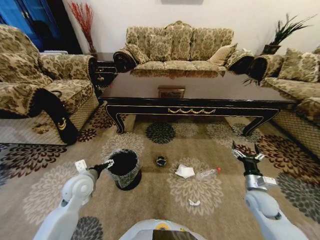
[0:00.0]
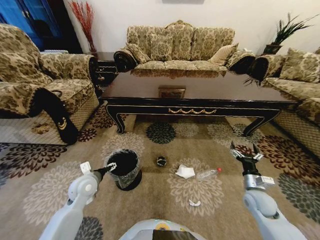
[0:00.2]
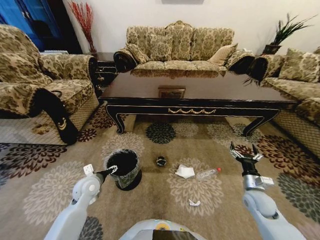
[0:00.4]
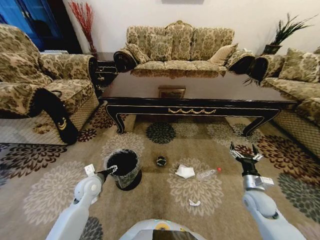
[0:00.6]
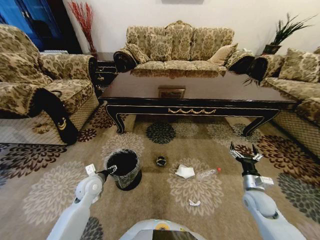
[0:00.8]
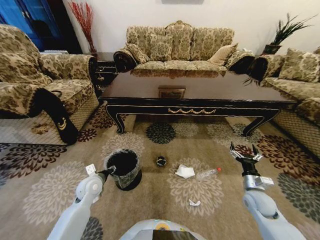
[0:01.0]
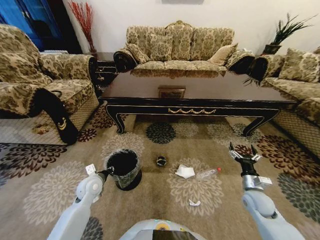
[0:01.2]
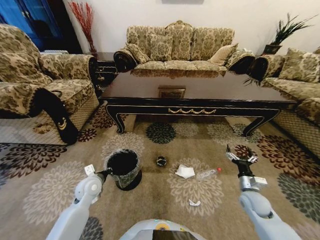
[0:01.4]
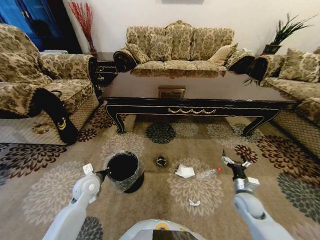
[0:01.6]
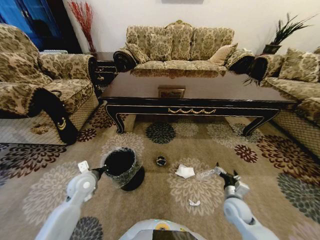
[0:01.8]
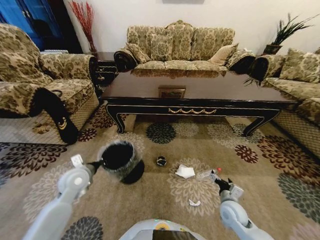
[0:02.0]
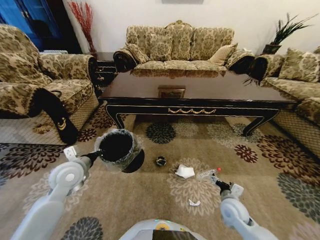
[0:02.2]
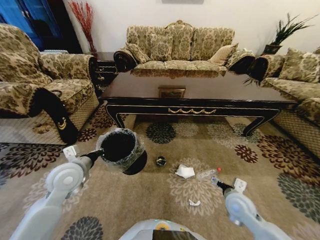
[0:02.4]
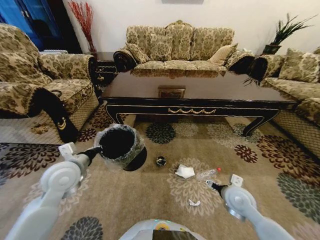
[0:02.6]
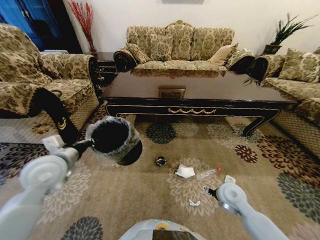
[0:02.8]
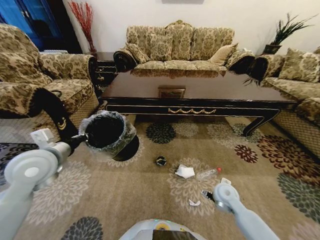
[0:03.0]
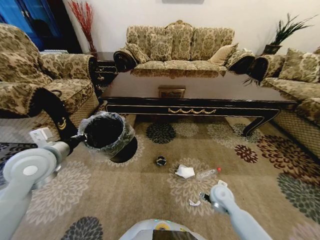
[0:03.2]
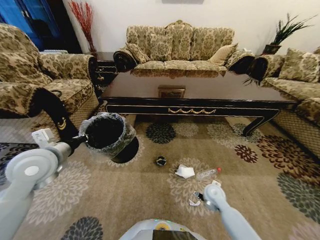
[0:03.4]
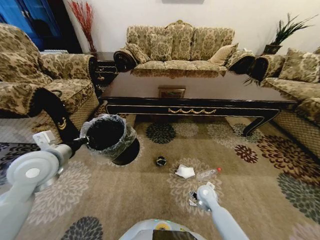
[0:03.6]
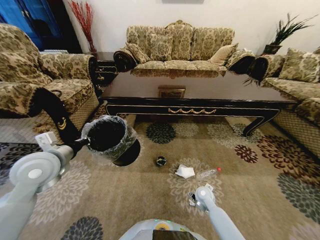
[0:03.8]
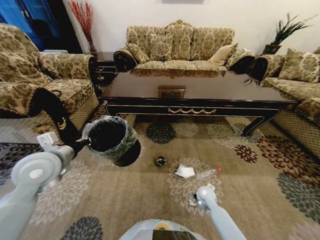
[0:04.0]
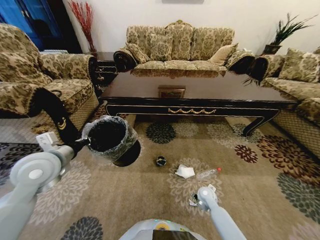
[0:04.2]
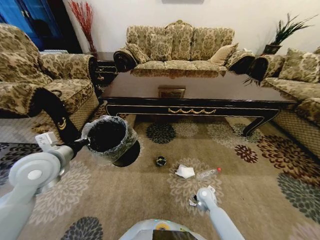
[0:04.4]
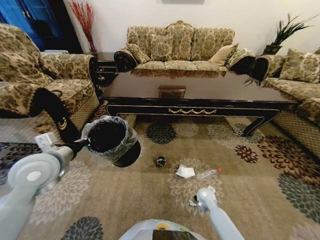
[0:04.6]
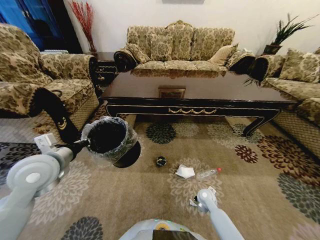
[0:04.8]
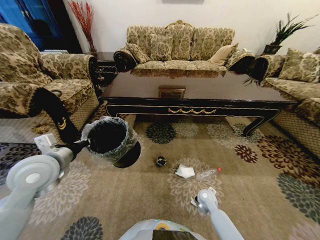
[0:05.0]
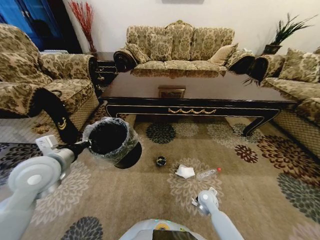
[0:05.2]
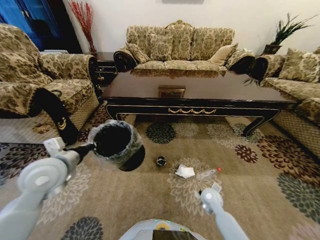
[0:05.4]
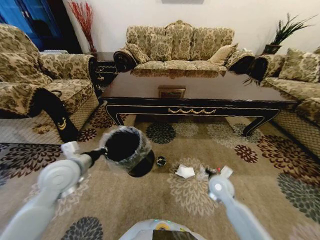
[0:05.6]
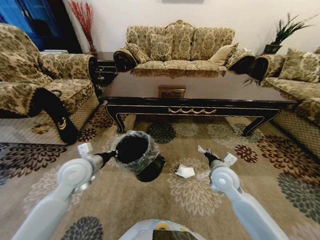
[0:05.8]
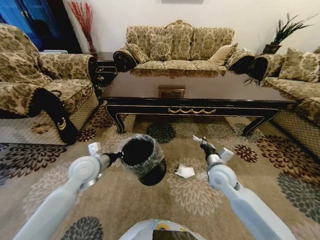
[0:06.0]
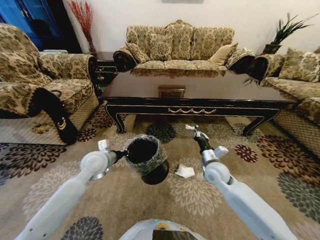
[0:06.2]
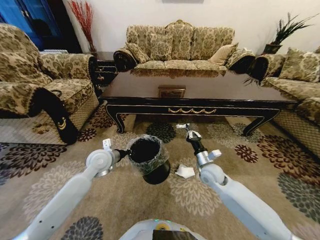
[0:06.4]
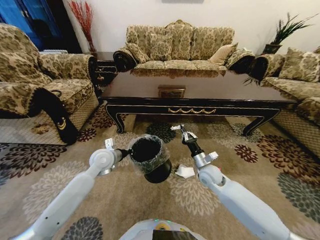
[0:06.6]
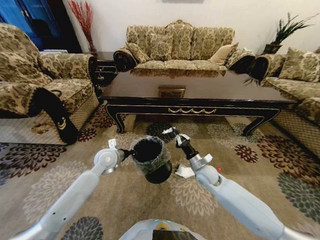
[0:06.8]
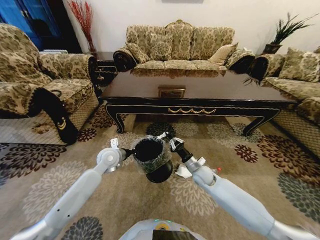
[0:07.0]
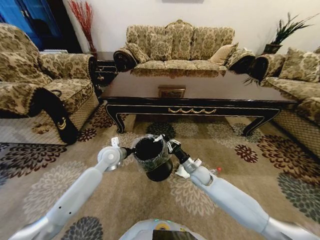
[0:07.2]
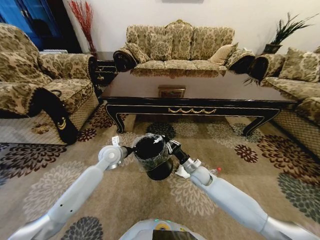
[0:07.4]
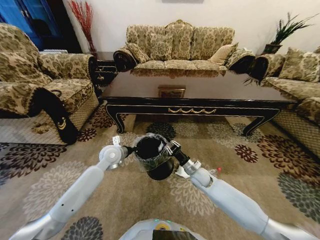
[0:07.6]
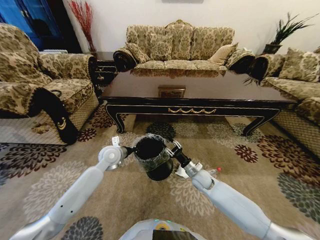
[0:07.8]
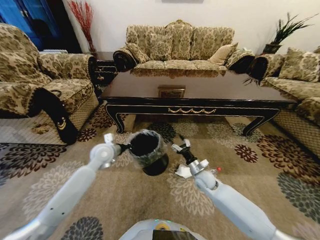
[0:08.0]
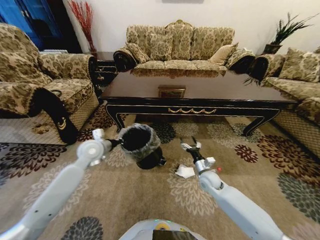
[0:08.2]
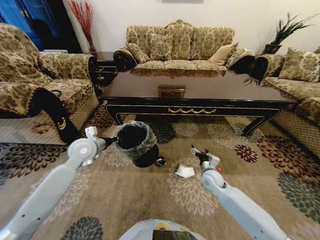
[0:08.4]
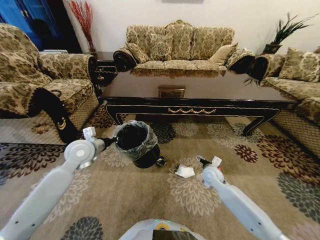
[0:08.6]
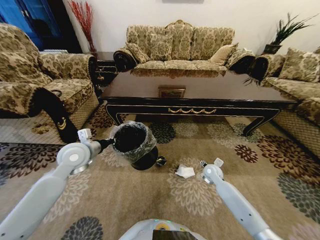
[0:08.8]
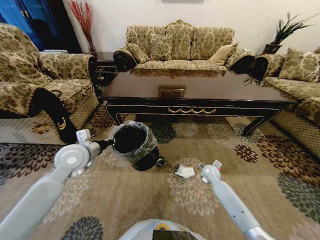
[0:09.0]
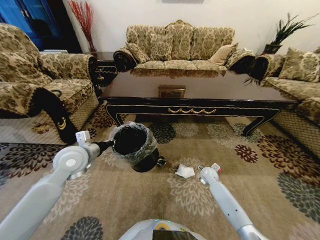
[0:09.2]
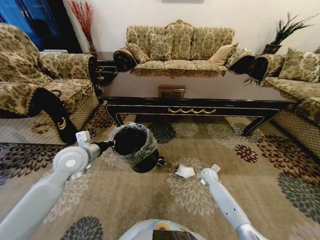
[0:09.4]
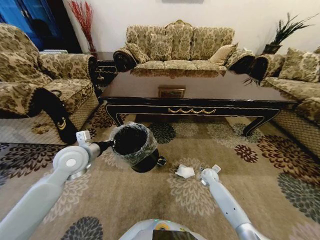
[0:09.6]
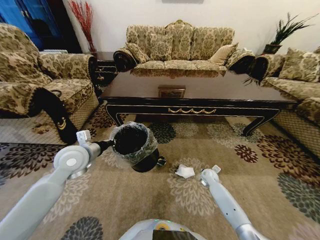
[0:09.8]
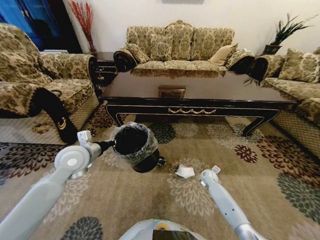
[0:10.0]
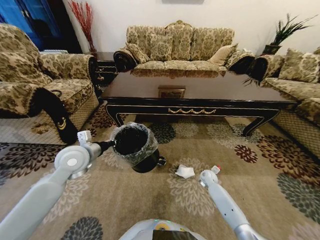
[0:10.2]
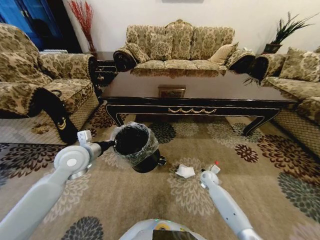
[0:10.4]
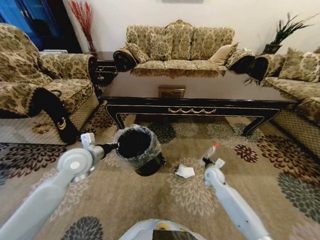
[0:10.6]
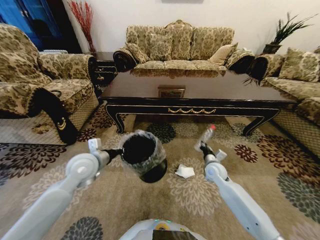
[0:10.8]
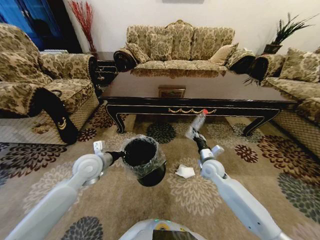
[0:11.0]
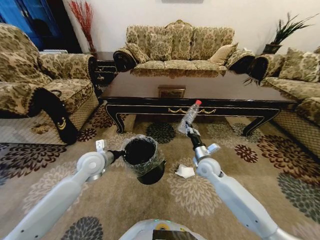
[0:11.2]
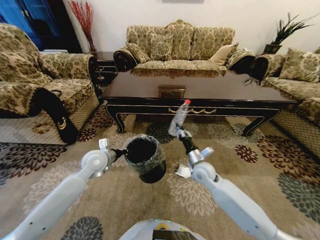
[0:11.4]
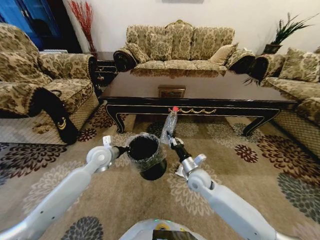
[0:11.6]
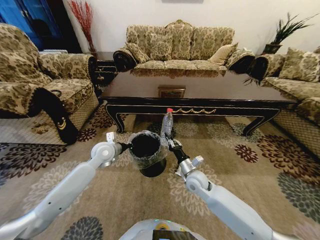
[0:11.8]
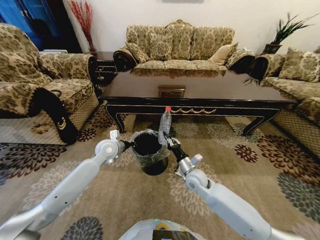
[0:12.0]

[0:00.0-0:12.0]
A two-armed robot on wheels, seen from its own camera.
Task of the whole recording: Move to the front of the table and pick up the trash from the floor, then place it into the trash bin.
0:00.0 to 0:01.6: The right gripper changes place by approximately 5 cm. Meanwhile the left gripper ends up approximately 5 cm from where it was, and closes its fingers.
0:01.6 to 0:03.0: The right gripper moves to the left, some 10 cm; the left gripper moves upward, some 20 cm.
0:03.0 to 0:04.4: The right gripper heads downward, covering roughly 15 cm.
0:04.4 to 0:06.0: The left gripper goes roughly 10 cm downward and to the right. Meanwhile the right gripper shifts approximately 20 cm upward, and closes.
0:06.0 to 0:07.6: The right gripper heads downward, covering approximately 15 cm. Meanwhile the left gripper moves forward, roughly 10 cm.
0:07.6 to 0:09.0: The left gripper shifts about 15 cm upward, to the left and backward; the right gripper shifts roughly 10 cm to the right, and opens up.
0:09.0 to 0:10.4: The right gripper closes up.
0:10.4 to 0:12.0: The right gripper travels upward, to the left and backward by approximately 20 cm, while the left gripper travels forward, downward and to the right by some 15 cm.

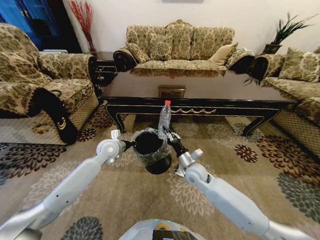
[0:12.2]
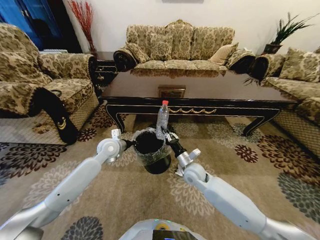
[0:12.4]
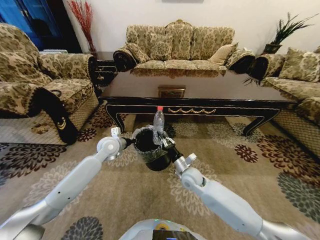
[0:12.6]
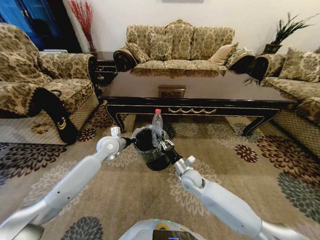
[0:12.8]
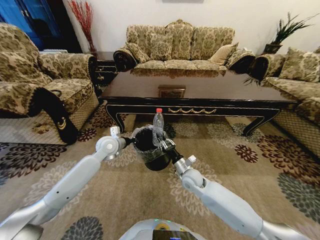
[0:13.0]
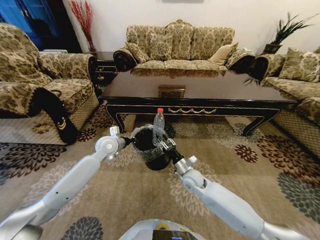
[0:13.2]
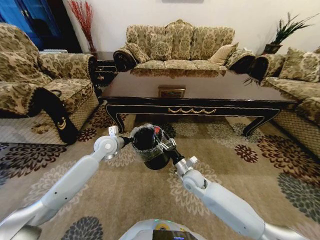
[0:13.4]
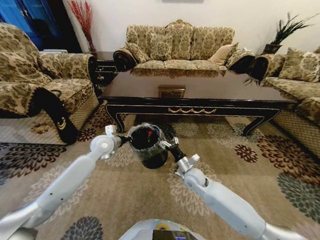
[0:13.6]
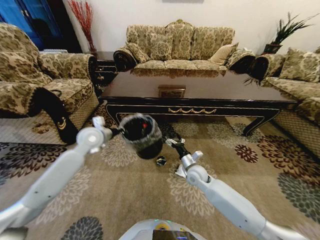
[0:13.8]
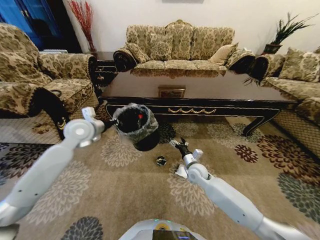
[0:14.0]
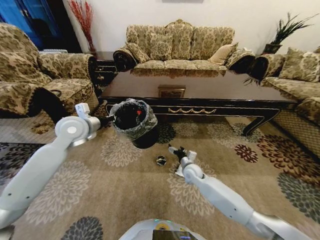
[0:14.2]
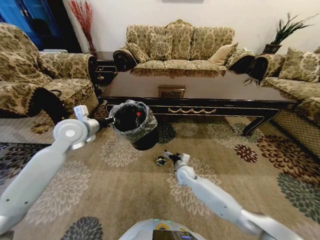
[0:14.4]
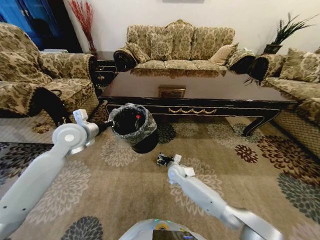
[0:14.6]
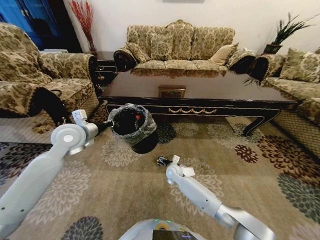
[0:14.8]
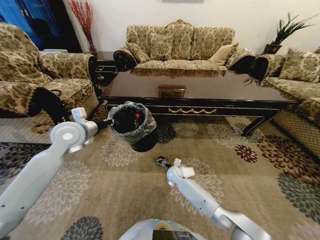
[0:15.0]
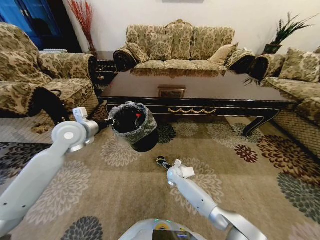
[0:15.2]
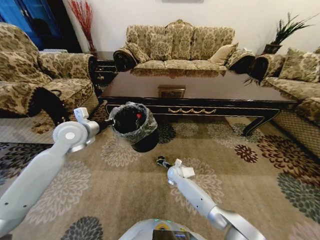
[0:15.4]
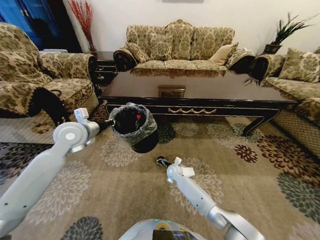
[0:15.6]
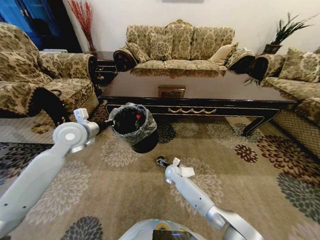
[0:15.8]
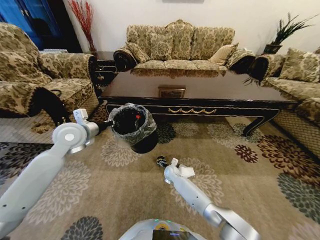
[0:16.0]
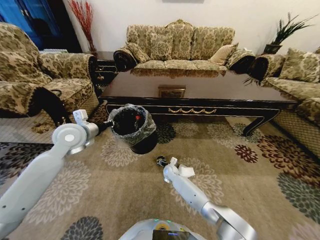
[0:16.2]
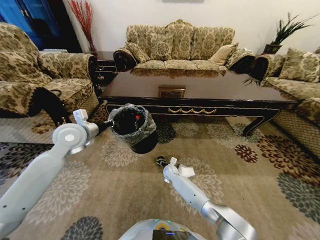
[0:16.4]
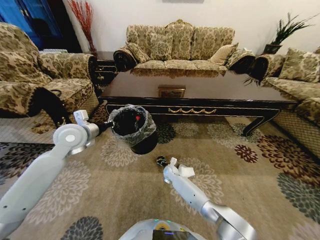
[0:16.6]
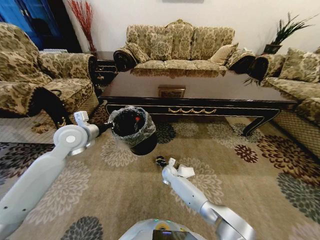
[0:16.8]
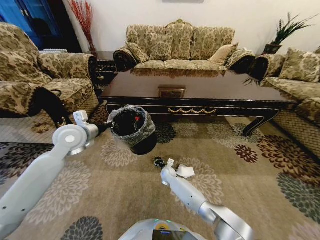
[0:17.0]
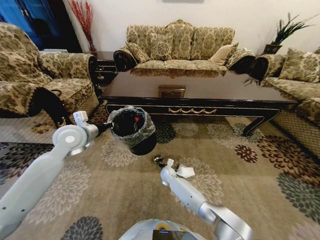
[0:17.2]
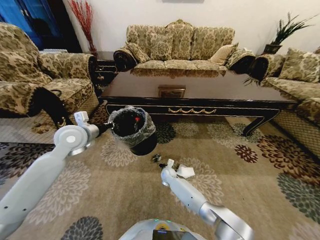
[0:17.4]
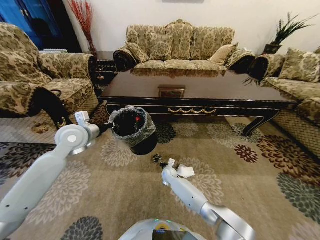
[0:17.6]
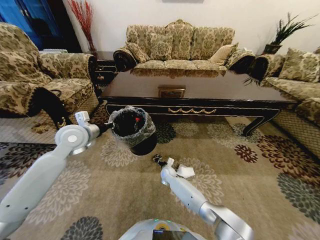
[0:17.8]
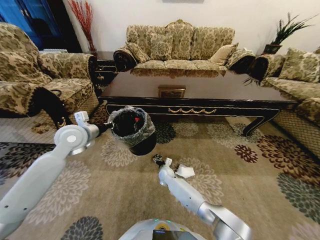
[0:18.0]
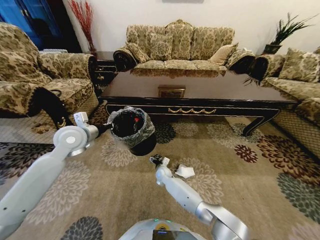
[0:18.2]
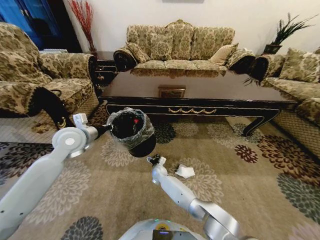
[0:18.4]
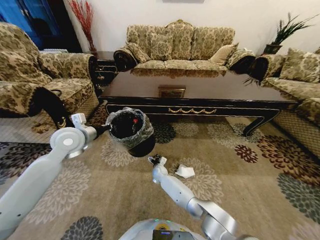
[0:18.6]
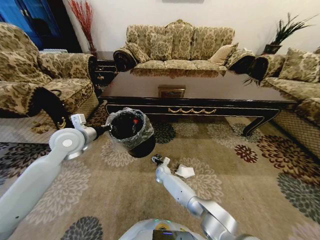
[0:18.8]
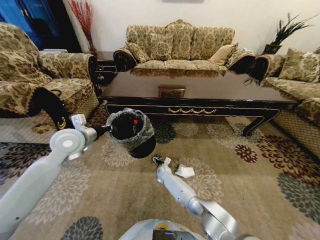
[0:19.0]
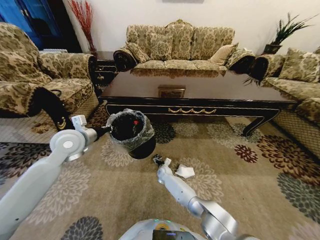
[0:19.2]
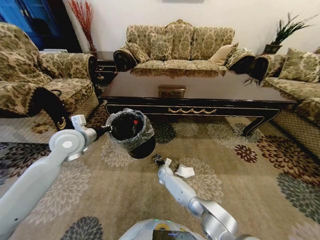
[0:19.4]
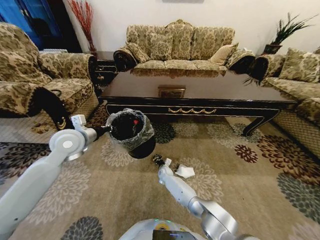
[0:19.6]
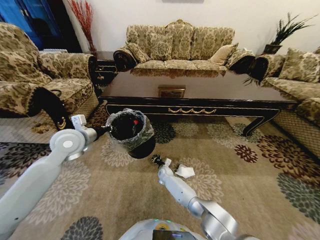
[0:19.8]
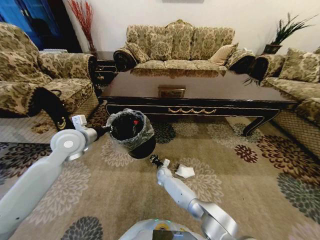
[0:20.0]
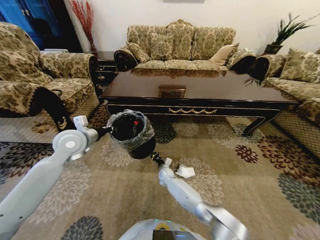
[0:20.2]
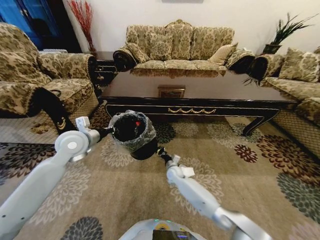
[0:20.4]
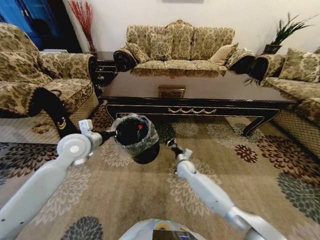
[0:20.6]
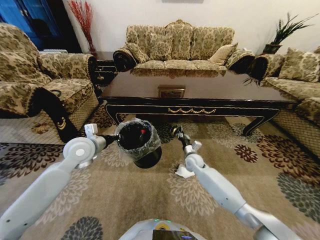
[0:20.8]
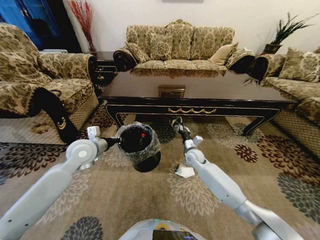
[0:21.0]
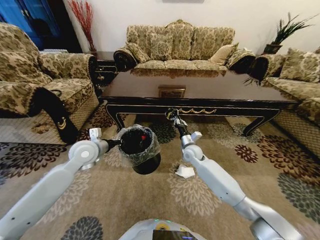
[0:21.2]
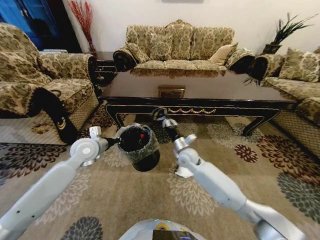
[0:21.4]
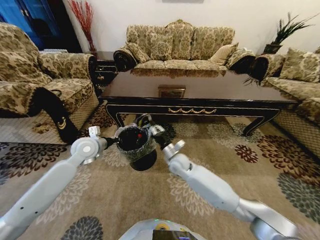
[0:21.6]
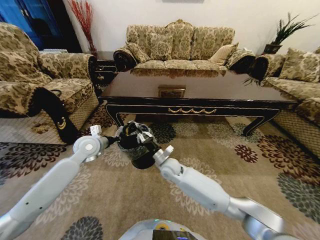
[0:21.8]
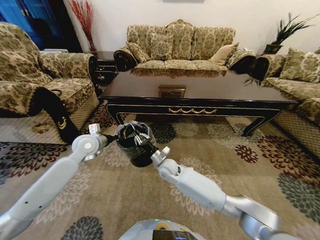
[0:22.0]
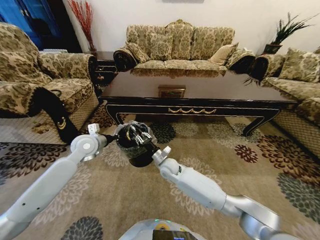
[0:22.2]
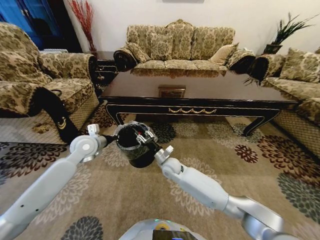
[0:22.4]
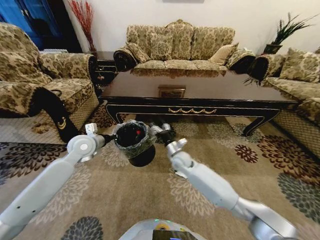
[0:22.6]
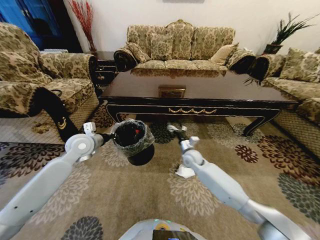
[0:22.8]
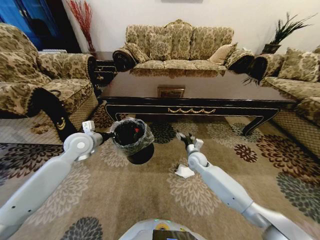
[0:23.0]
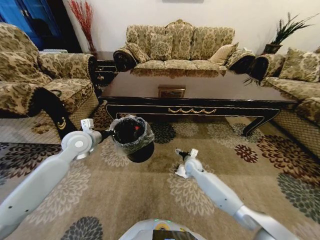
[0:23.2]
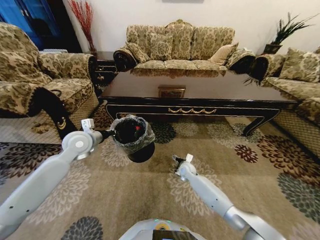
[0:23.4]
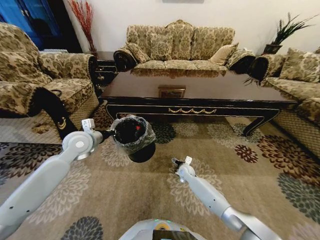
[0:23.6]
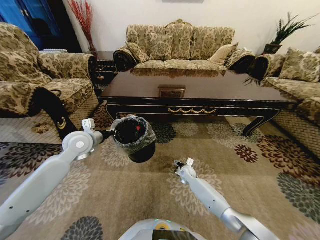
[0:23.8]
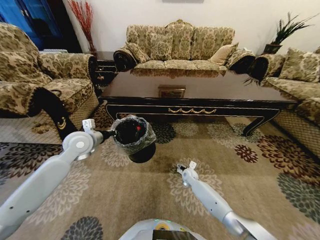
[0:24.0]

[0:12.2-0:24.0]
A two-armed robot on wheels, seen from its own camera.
Task of the whole recording: Move to the front of the table and pick up the trash from the floor, then place it into the trash bin.
0:12.2 to 0:13.6: The right gripper opens its fingers.
0:13.6 to 0:15.2: The left gripper is displaced upward and to the left by some 15 cm; the right gripper travels downward, forward and to the left by some 15 cm.
0:15.2 to 0:16.6: The right gripper closes up.
0:16.6 to 0:18.2: The right gripper closes and opens again.
0:18.2 to 0:19.6: The right gripper ends up some 5 cm from where it was, and closes up.
0:19.6 to 0:21.0: The left gripper changes place by about 5 cm; the right gripper goes roughly 25 cm upward and to the right.
0:21.0 to 0:22.6: The right gripper is displaced to the left by some 10 cm, and opens.
0:22.6 to 0:24.0: The right gripper moves downward and to the right, about 20 cm, and opens up.
